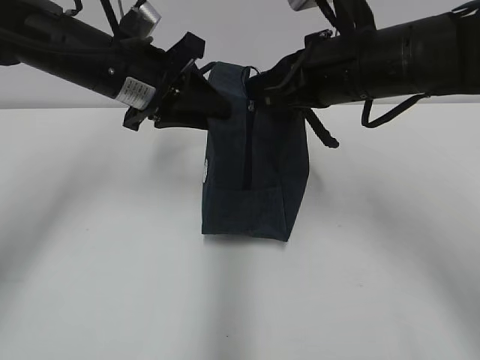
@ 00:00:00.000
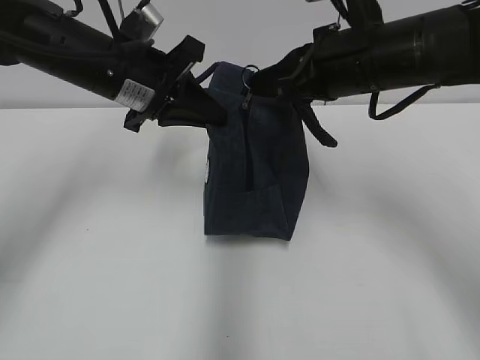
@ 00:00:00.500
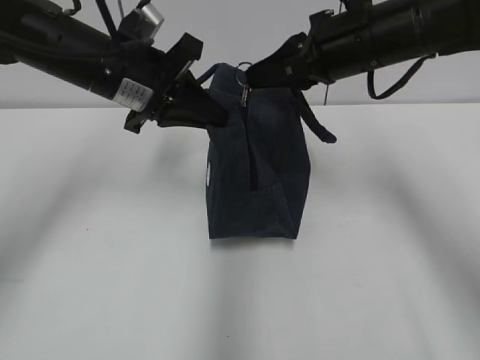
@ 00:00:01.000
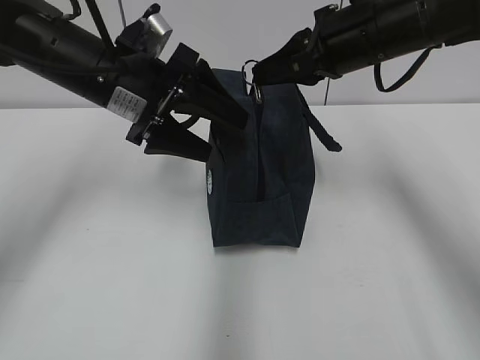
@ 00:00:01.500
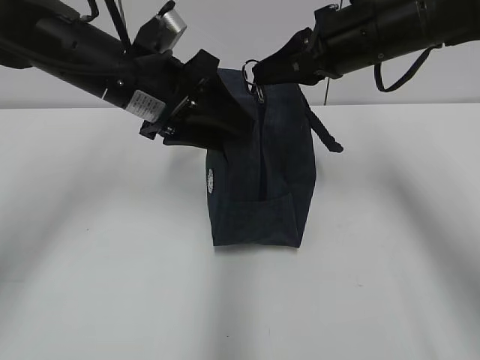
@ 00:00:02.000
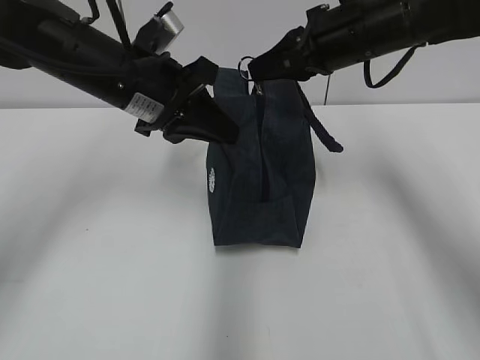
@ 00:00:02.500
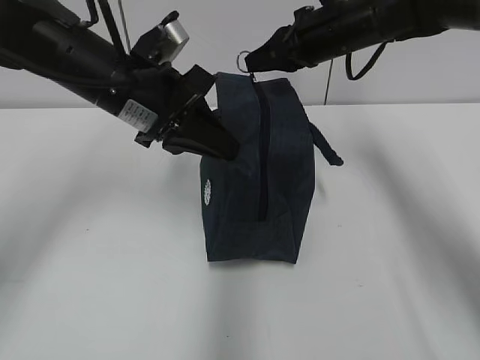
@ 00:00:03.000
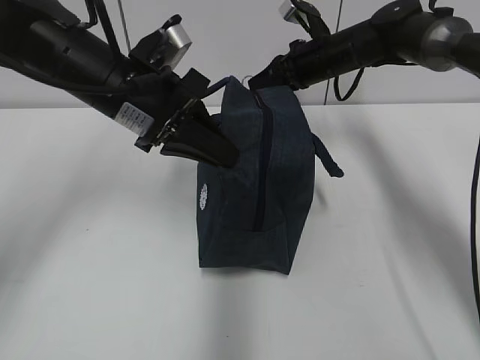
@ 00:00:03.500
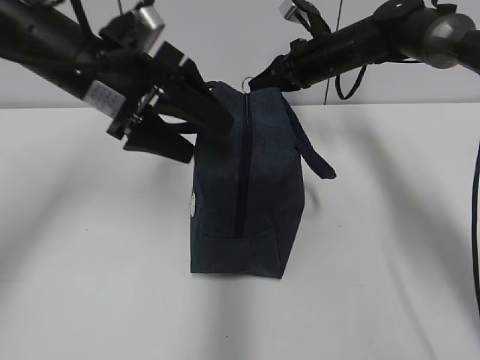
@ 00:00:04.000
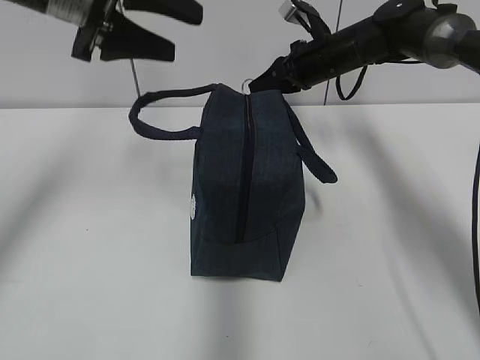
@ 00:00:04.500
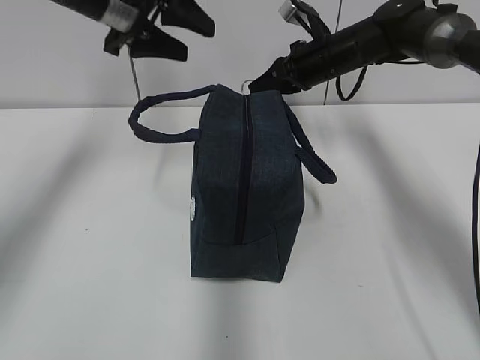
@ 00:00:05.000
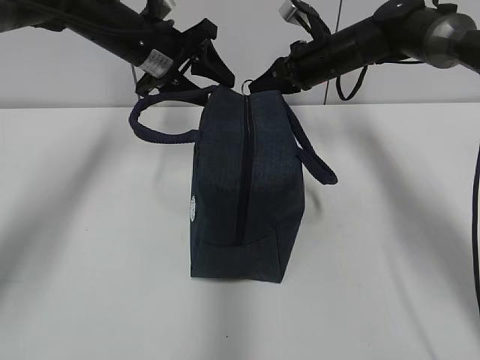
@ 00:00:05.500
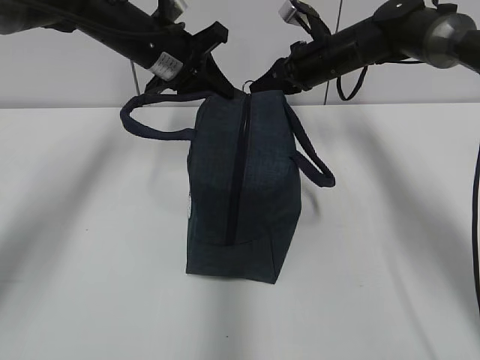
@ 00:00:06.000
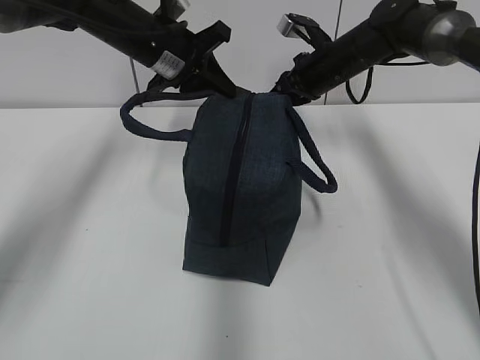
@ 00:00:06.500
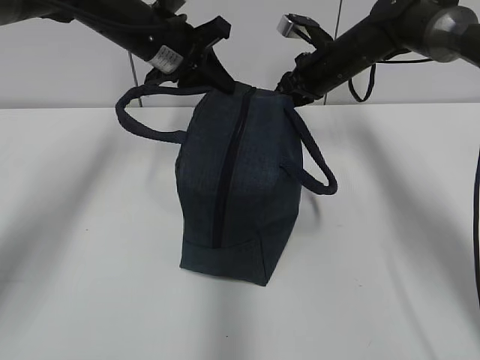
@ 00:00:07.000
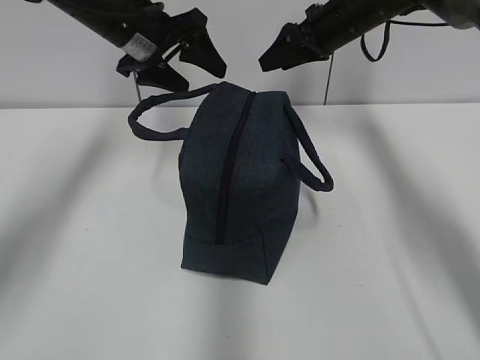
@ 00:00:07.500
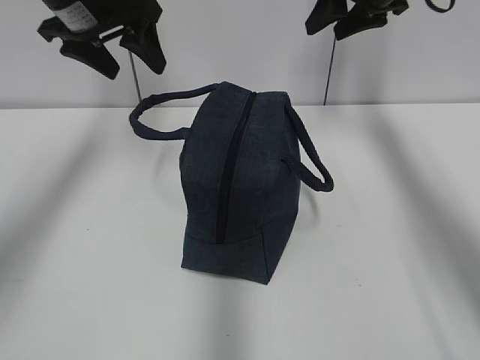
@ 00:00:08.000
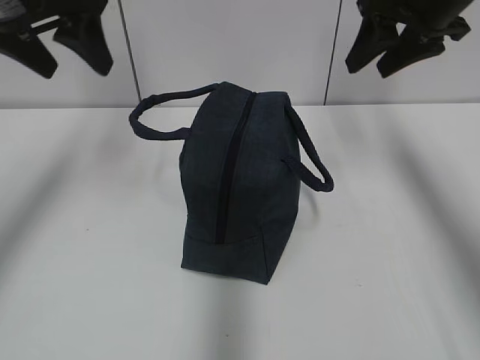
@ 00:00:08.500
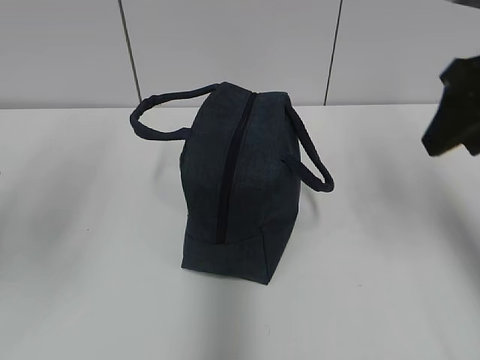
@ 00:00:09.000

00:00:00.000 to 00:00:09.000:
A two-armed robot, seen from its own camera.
Step, 00:00:00.500 to 00:00:07.000: Pull the zipper with your right hand.
00:00:00.000 to 00:00:02.000: The left gripper closes, then opens again. Meanwhile the right gripper changes place by about 5 cm.
00:00:02.000 to 00:00:04.500: The left gripper moves upward and to the left, some 10 cm, and closes and opens again. Meanwhile the right gripper heads forward and downward, covering some 15 cm.
00:00:04.500 to 00:00:07.000: The left gripper is displaced forward, downward and to the right by some 15 cm, and closes.
00:00:07.000 to 00:00:09.000: The right gripper moves backward and upward, some 30 cm, and opens. The left gripper travels backward and to the left by some 30 cm, and opens its fingers.
